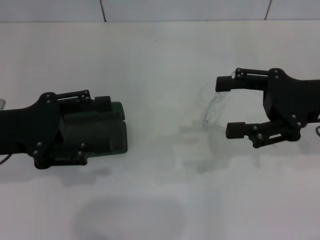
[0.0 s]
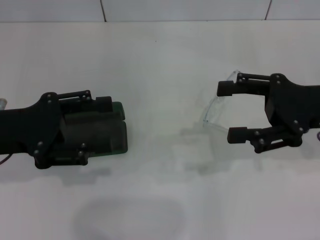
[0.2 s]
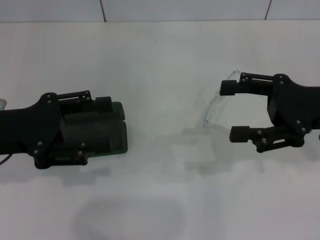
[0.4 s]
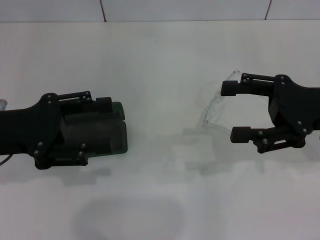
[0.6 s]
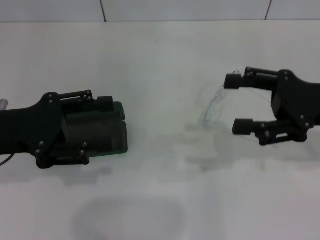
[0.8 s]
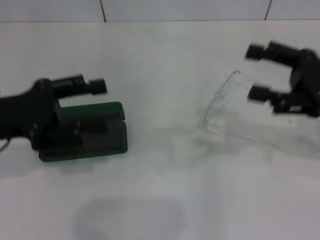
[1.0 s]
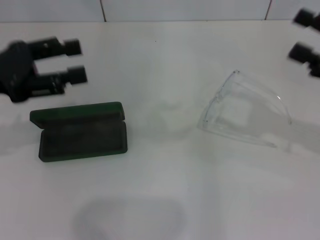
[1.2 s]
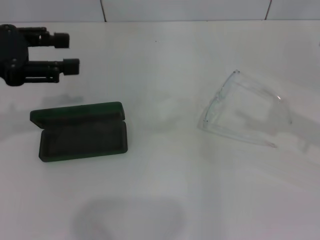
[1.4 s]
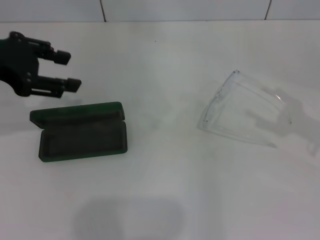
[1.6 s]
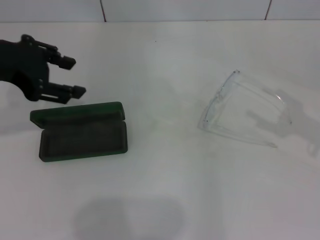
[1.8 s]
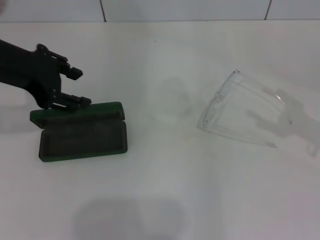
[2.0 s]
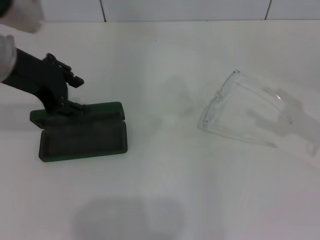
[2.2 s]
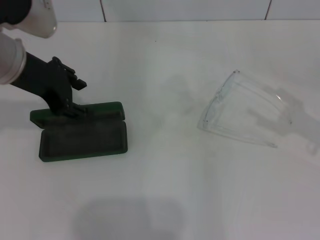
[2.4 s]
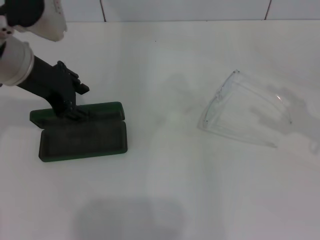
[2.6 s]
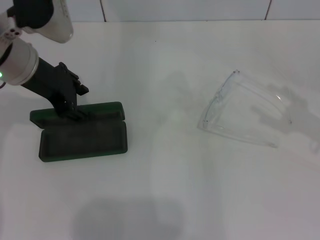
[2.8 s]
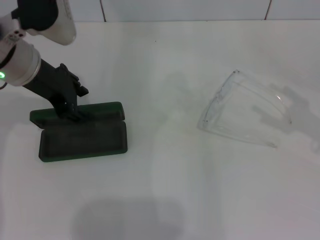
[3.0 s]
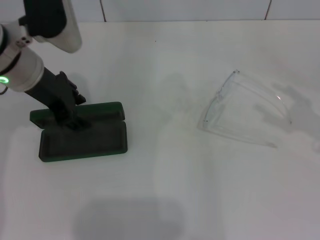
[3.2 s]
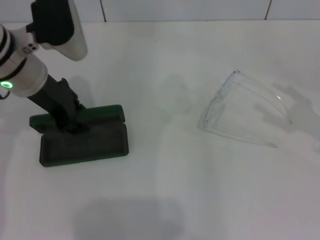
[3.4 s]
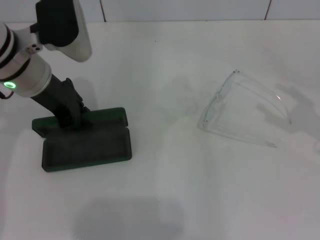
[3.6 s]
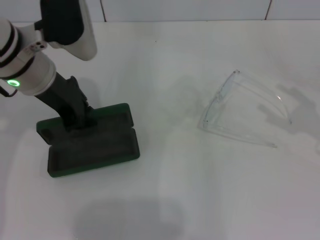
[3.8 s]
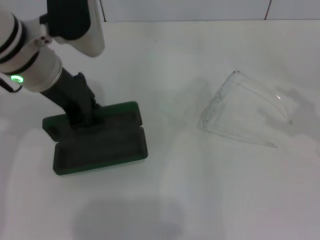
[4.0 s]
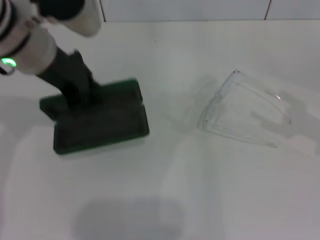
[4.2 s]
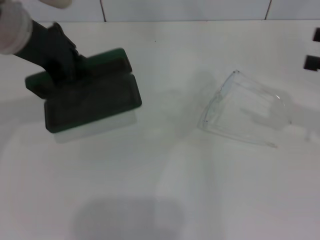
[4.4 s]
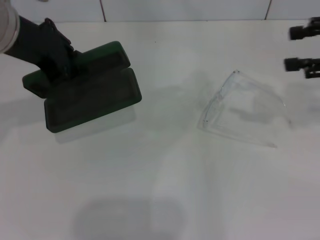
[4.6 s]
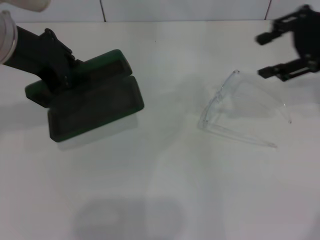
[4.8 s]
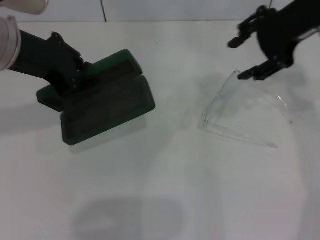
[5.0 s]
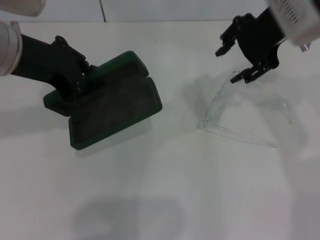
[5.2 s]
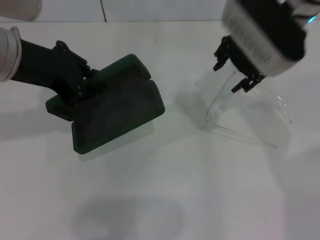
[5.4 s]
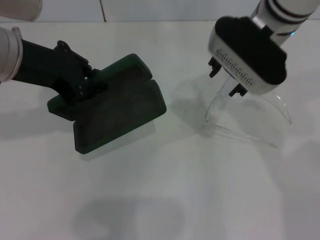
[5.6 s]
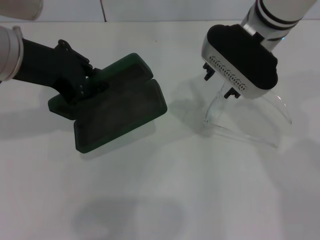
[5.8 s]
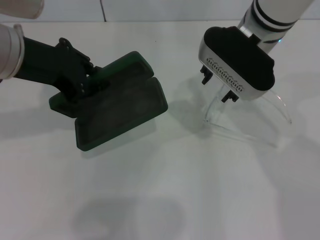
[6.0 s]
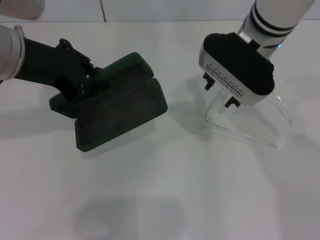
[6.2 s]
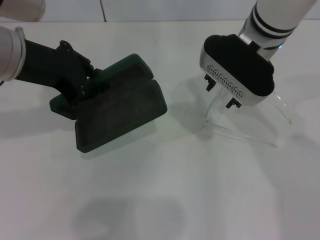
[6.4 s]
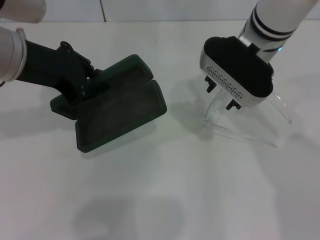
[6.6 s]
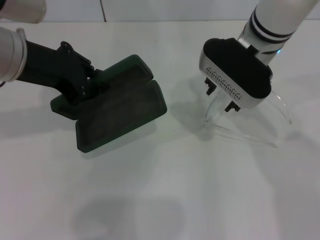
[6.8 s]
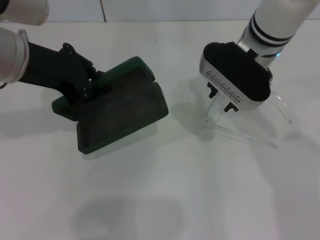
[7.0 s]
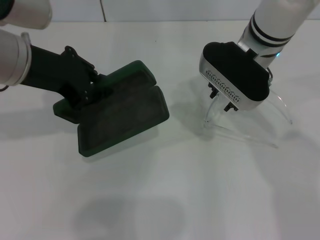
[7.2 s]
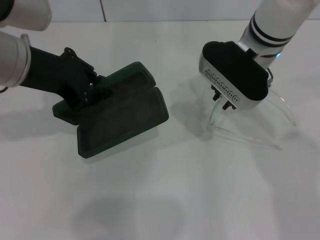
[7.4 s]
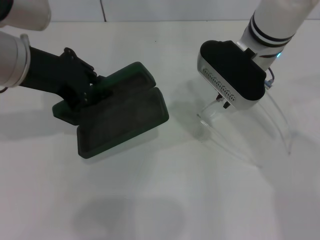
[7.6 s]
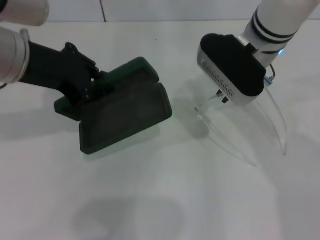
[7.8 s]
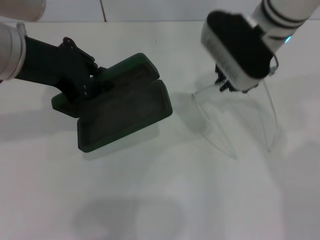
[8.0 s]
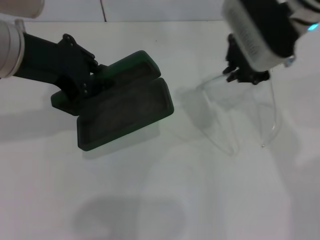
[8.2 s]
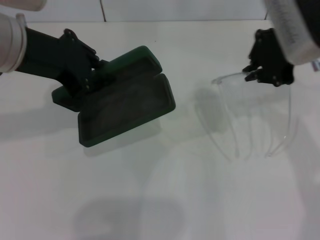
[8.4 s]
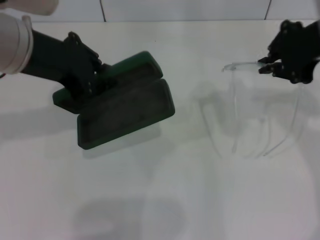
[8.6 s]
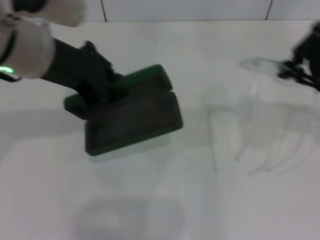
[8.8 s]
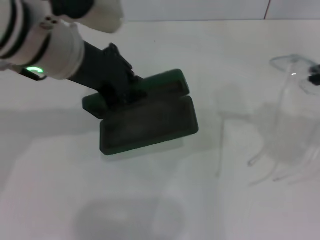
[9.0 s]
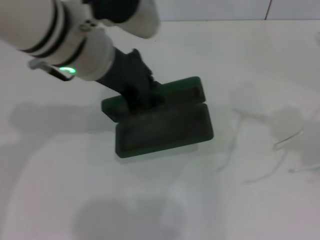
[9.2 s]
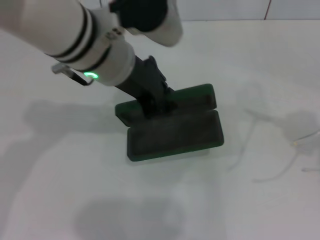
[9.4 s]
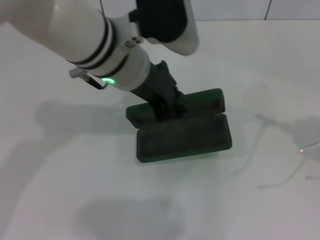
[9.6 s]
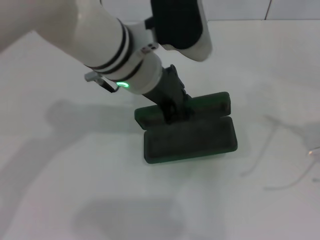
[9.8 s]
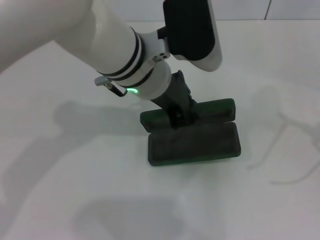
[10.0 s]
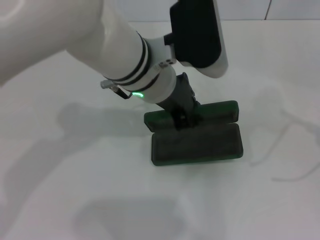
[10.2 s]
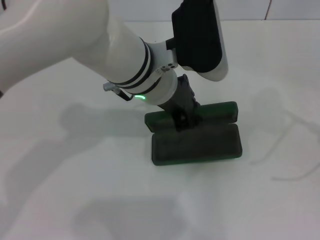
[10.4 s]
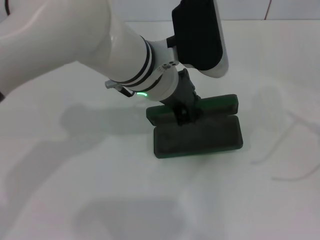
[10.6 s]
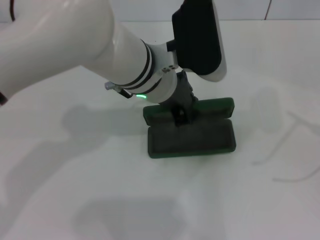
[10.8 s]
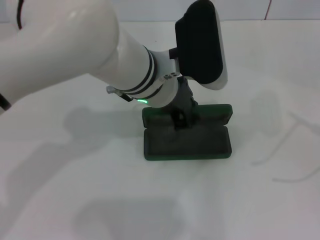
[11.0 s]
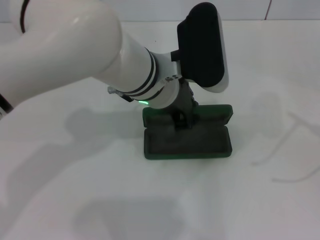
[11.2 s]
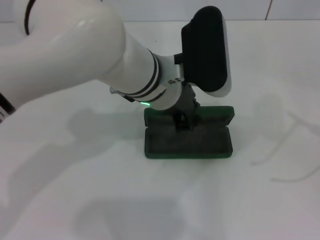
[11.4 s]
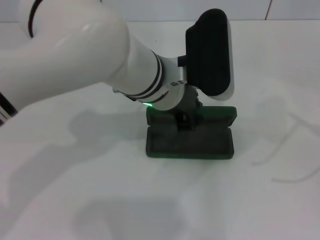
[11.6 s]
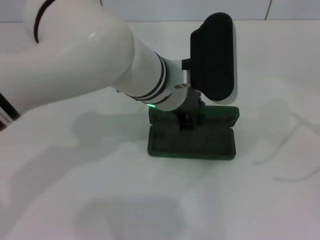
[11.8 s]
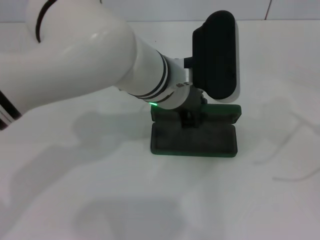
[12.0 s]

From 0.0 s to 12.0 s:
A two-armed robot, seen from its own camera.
Step, from 0.0 s to 3.8 s: Grab the glasses case with your left hand.
Step, from 4.0 s to 7.6 s: Grab the eyeglass frame with your right hand.
From 0.0 s to 1.6 s: The right gripper heads to the right, covering about 10 cm. Meanwhile the left gripper is displaced upward and forward by about 10 cm.
From 1.6 s to 3.0 s: The left gripper shifts some 10 cm to the right and downward.
From 3.0 s to 4.4 s: Both grippers travel together upward, approximately 5 cm. The left gripper closes its fingers.
From 4.4 s to 6.0 s: The right gripper heads to the left, covering approximately 25 cm.
From 6.0 s to 7.6 s: The grippers make only small movements.
From 7.6 s to 9.0 s: The left gripper is displaced to the right by about 5 cm. Meanwhile the right gripper goes about 25 cm to the right, backward and upward.
From 9.0 s to 10.4 s: The right gripper moves to the right and backward, some 15 cm. The left gripper moves to the right and downward, some 10 cm.

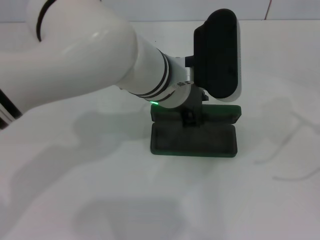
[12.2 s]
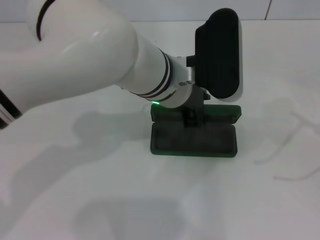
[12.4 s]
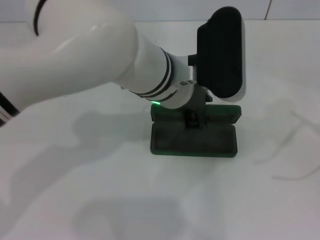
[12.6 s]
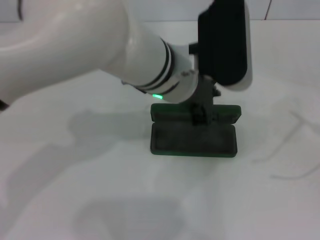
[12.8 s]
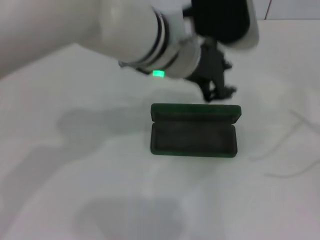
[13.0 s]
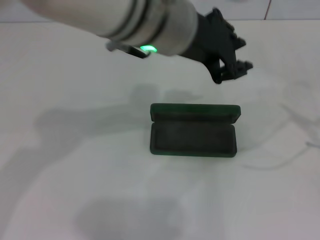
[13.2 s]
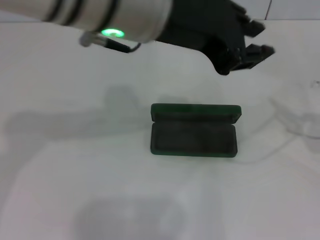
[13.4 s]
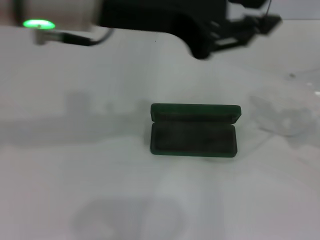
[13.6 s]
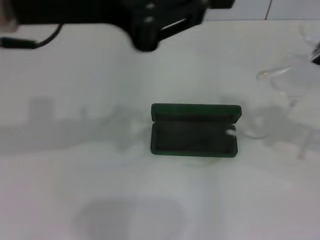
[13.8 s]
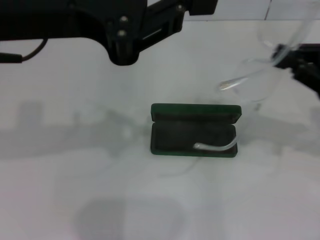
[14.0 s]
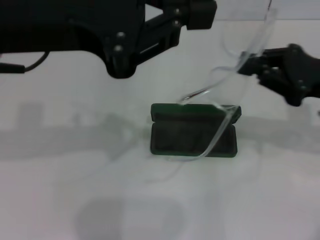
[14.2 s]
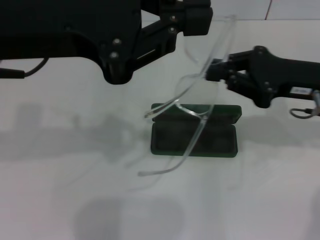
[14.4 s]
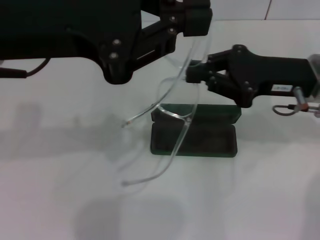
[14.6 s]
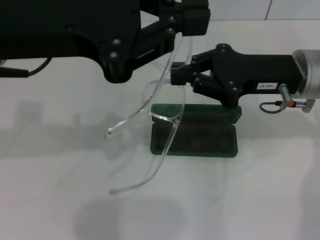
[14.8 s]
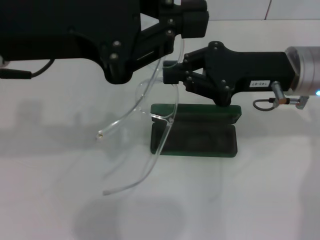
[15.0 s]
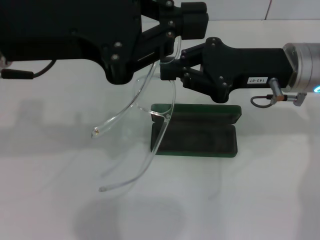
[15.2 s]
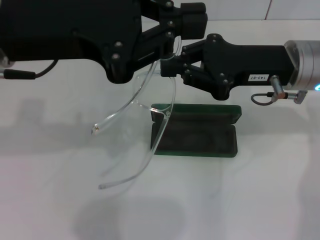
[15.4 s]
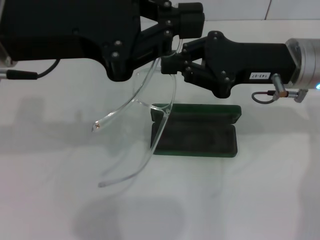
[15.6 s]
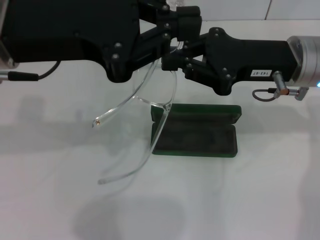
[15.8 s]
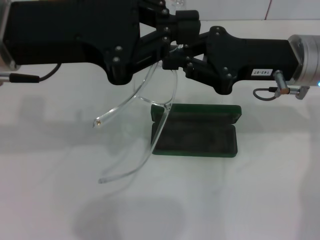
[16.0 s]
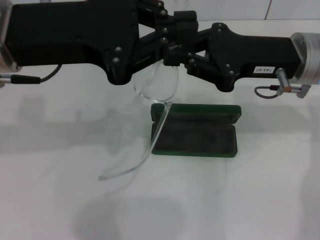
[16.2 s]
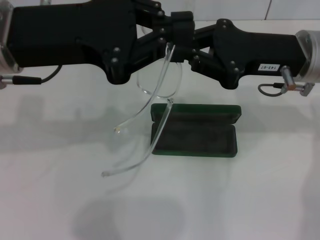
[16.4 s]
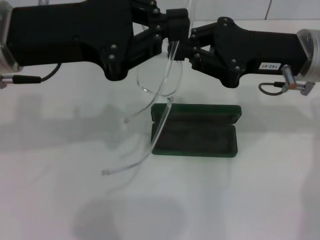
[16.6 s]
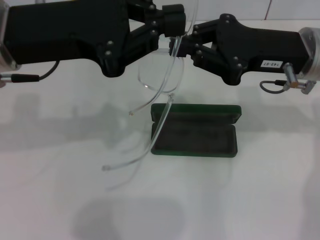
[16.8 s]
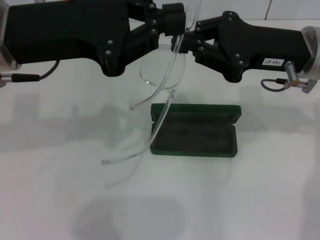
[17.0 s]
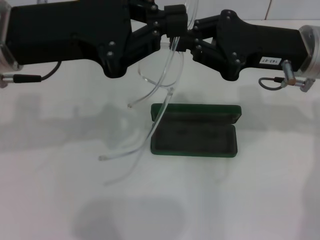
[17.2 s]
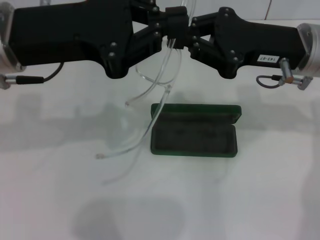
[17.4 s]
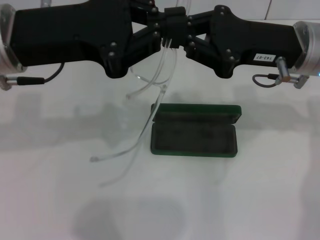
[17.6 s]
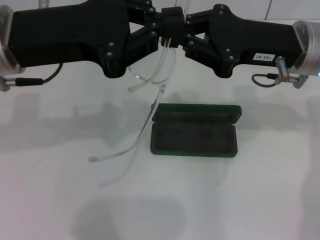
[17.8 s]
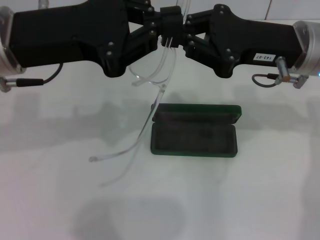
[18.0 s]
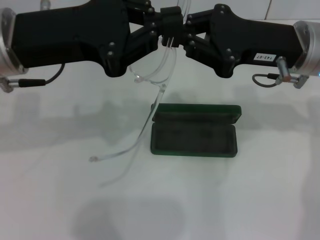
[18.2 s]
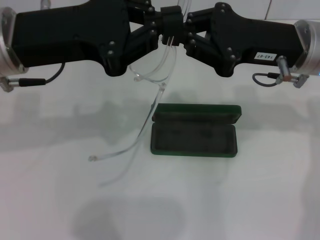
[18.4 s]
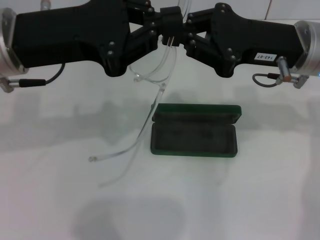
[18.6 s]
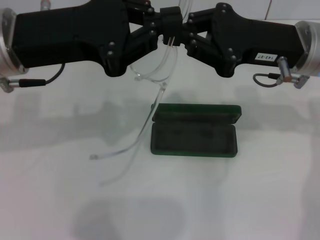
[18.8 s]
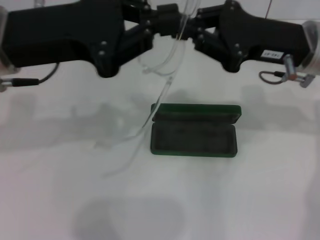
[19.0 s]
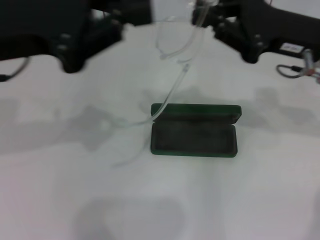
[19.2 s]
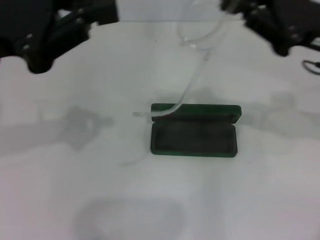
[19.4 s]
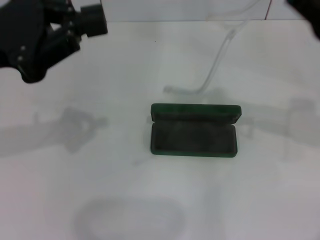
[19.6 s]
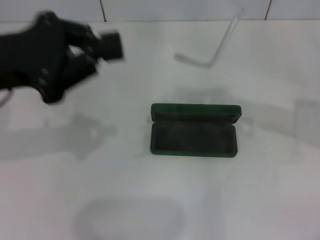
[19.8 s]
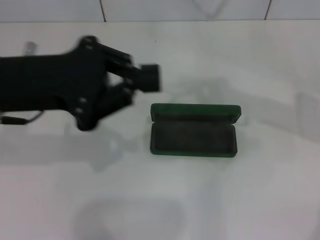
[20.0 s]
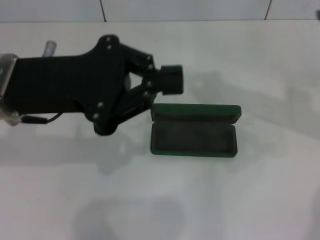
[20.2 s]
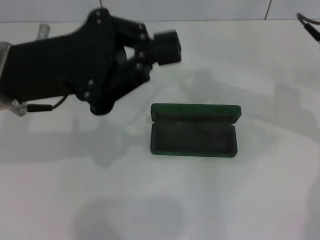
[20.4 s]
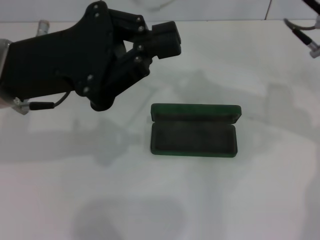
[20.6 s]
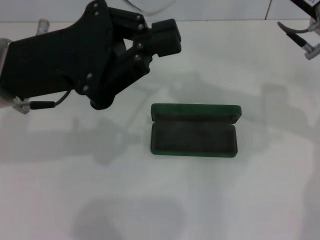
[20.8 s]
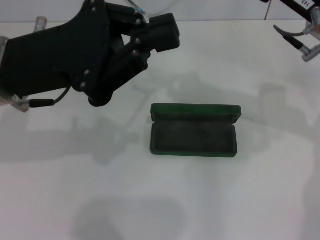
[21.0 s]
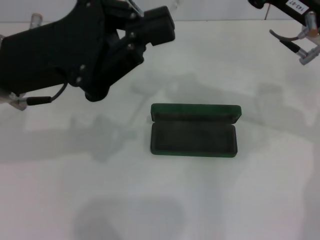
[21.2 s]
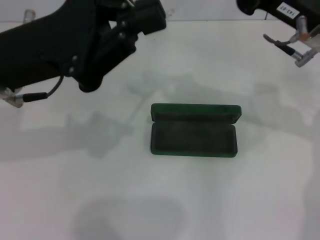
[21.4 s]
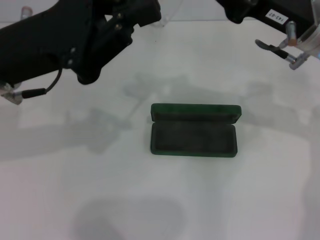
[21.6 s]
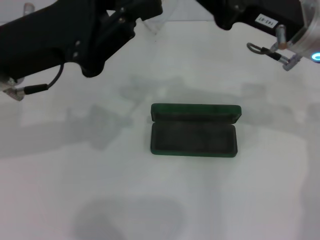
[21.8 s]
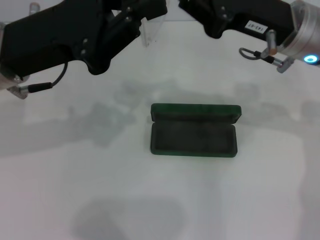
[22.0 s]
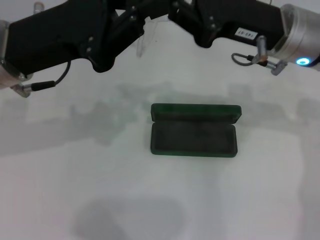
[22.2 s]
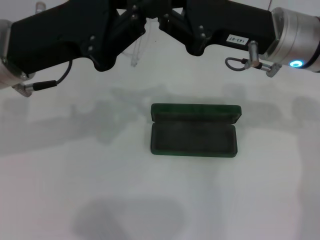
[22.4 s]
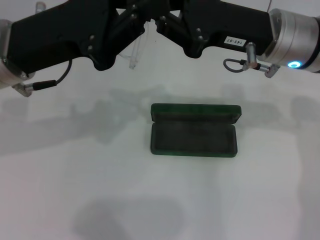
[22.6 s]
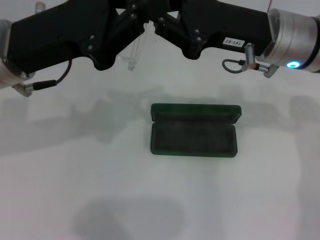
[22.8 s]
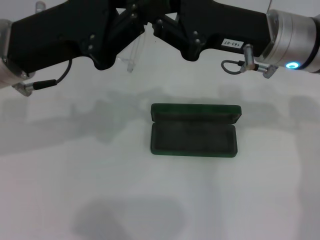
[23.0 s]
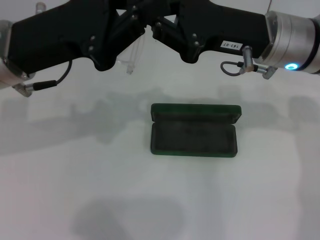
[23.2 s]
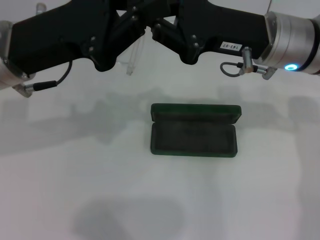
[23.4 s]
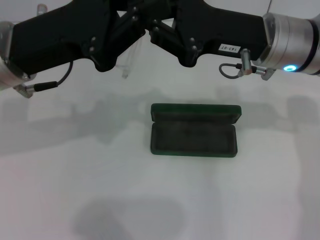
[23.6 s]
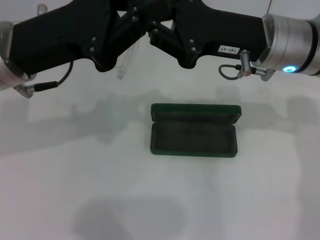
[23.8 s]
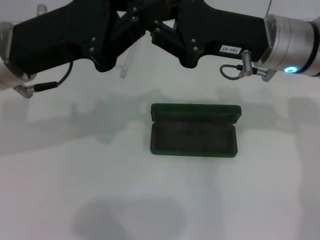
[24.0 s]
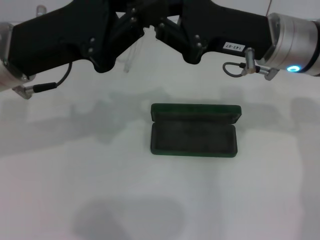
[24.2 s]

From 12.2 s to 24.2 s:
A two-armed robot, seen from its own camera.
From 12.2 s to 13.8 s: The right gripper shifts some 15 cm forward, to the left and downward; the left gripper shifts roughly 25 cm upward, to the left and backward.
From 13.8 s to 15.2 s: The right gripper moves to the left and forward, about 20 cm.
From 15.2 s to 18.2 s: The grippers make only small movements.
From 18.2 s to 19.8 s: The left gripper heads to the left, covering approximately 5 cm, while the right gripper is displaced to the right by some 10 cm.
From 19.8 s to 21.2 s: The left gripper shifts by some 5 cm; the right gripper goes about 5 cm to the left.
From 22.6 s to 24.2 s: The two grippers keep their place.
